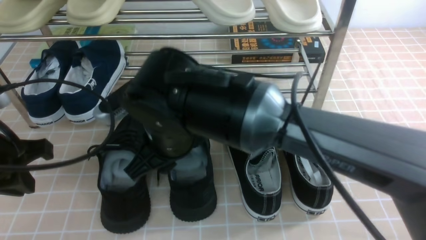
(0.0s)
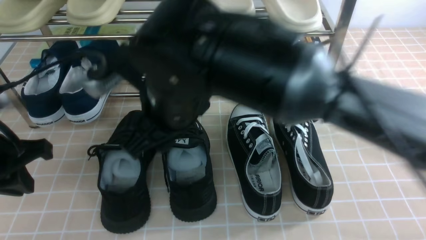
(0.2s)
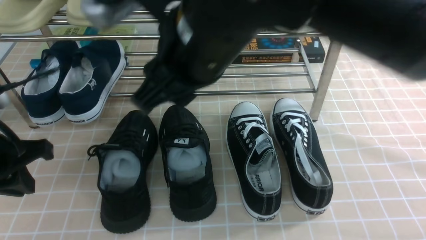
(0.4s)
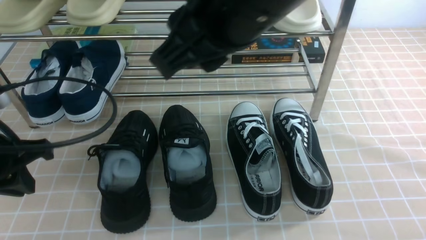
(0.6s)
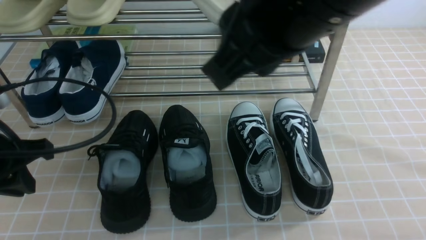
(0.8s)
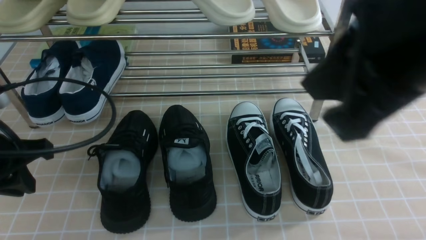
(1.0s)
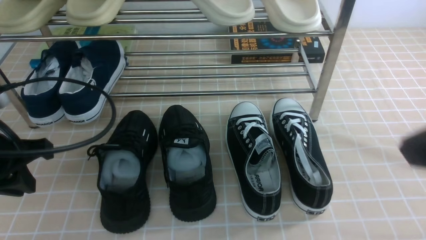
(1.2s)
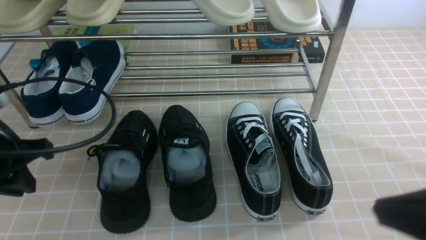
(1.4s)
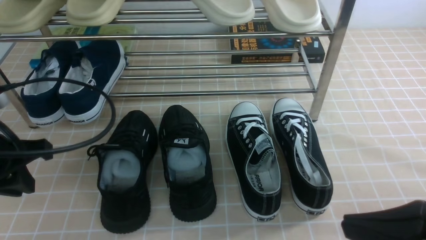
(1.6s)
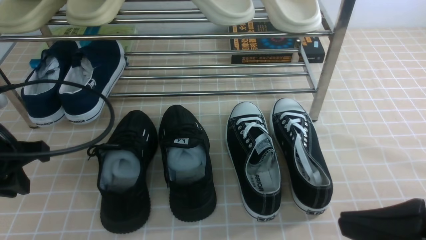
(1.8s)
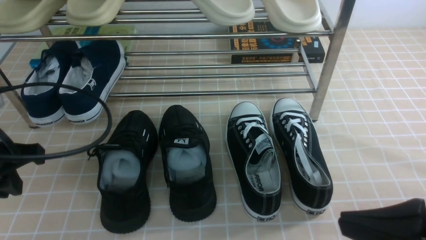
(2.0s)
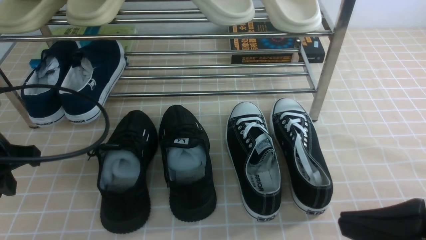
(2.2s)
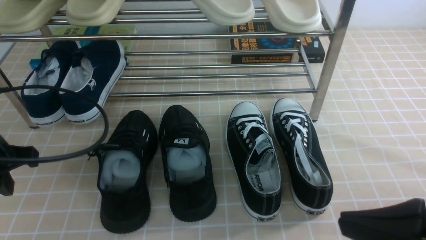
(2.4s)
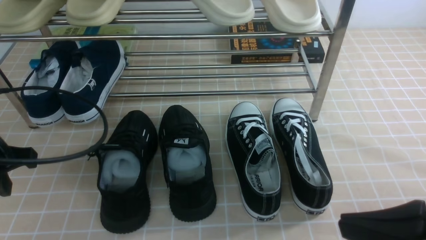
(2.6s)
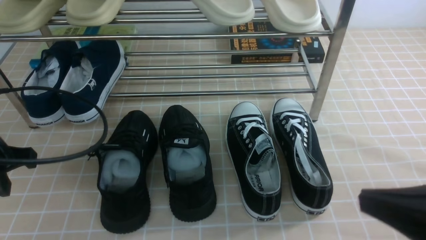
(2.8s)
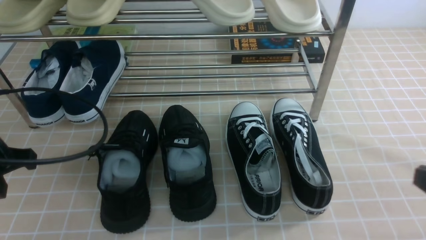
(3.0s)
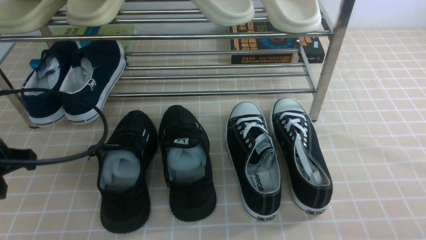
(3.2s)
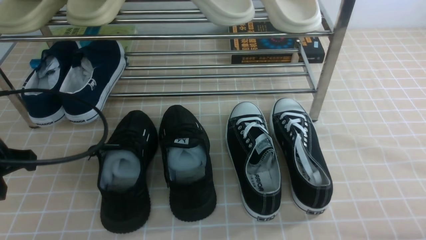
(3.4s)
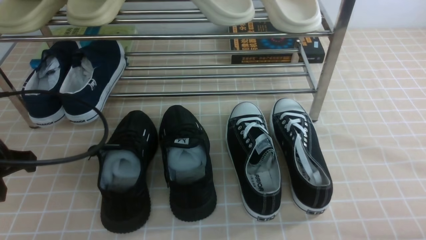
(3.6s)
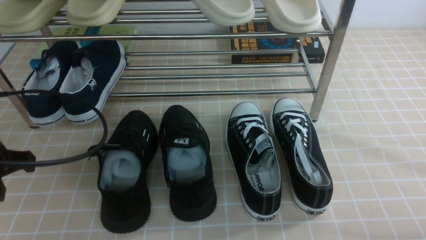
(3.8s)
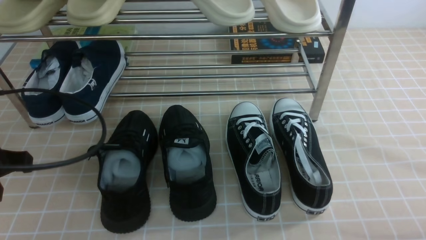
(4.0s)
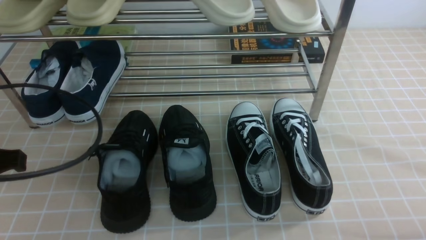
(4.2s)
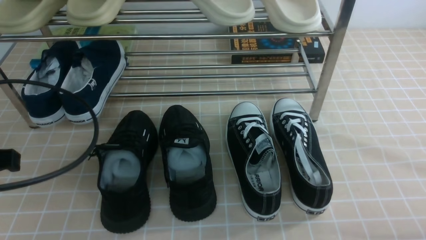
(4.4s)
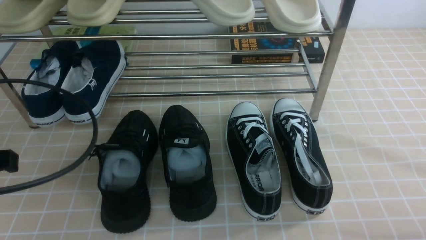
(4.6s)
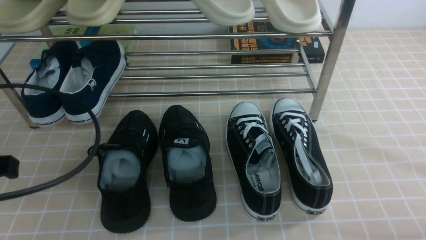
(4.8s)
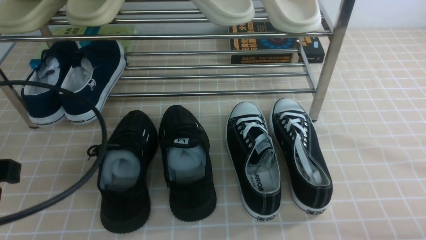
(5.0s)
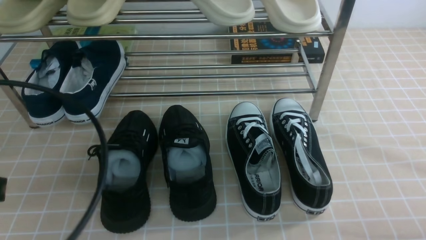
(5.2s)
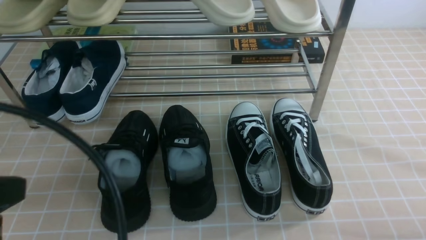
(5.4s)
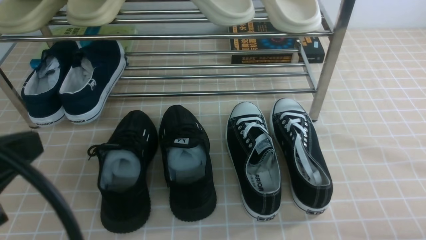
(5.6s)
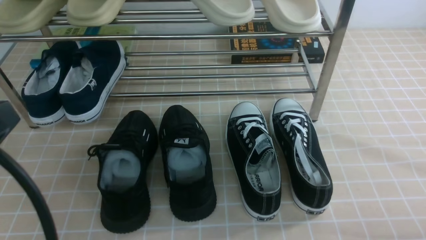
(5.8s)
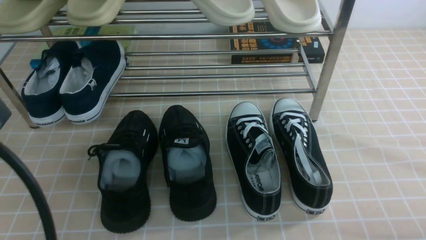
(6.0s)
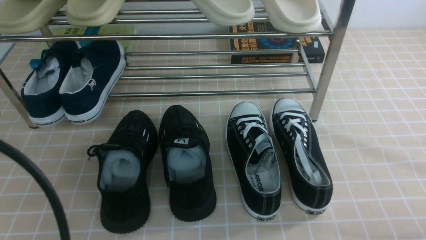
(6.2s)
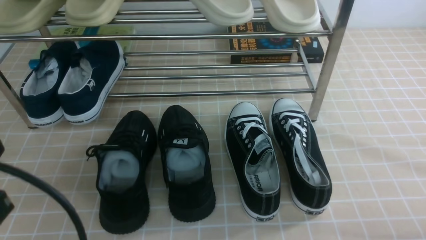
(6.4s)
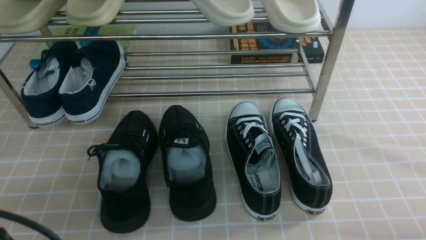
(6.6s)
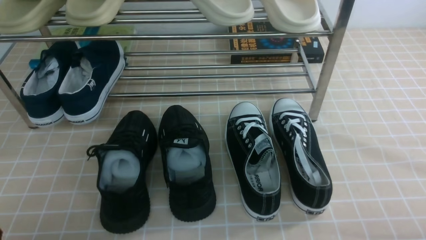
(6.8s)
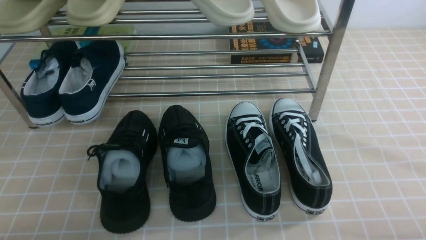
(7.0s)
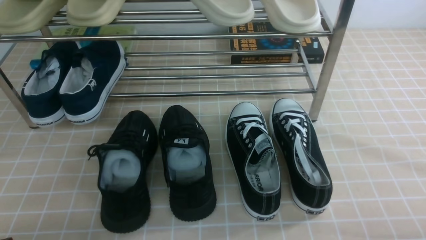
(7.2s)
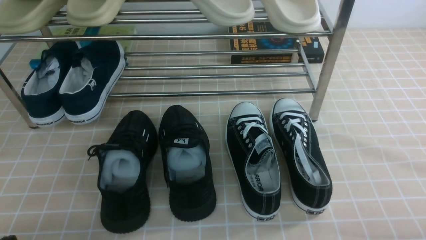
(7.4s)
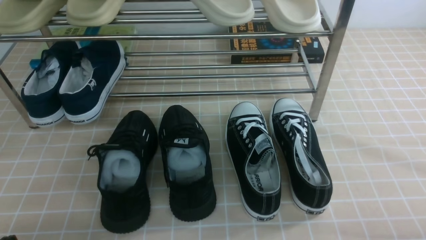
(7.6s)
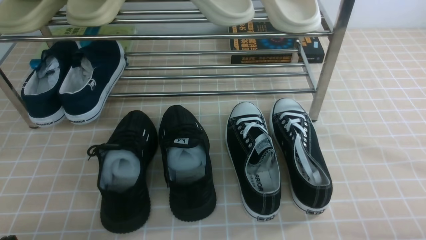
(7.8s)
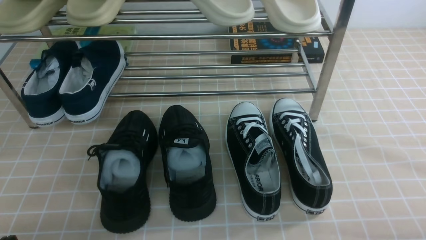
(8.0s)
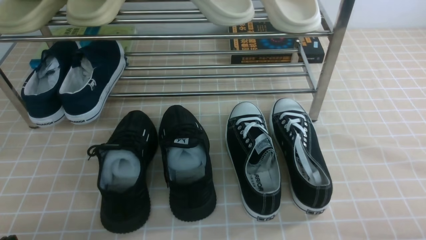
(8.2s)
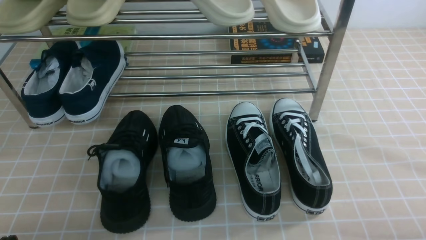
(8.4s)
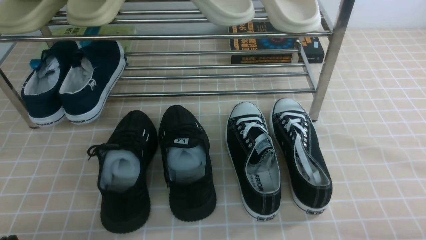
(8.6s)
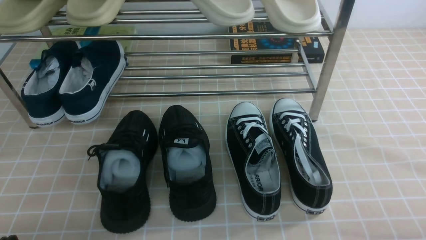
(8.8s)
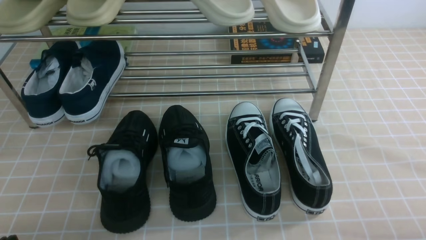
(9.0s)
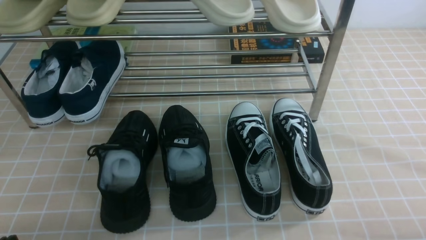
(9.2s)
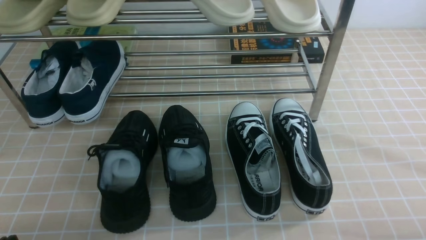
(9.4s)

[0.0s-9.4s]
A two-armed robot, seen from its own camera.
0.0s to 1.6s: The right gripper is displaced to the right and backward by about 35 cm, and closes.
1.6s to 3.2s: The right gripper goes roughly 15 cm to the right and downward.
3.2s to 4.8s: The left gripper ends up about 5 cm from where it was.
4.8s to 6.2s: The left gripper travels backward by about 10 cm.
6.2s to 7.8s: The left gripper goes about 15 cm downward.
7.8s to 9.4s: Neither gripper changes place.

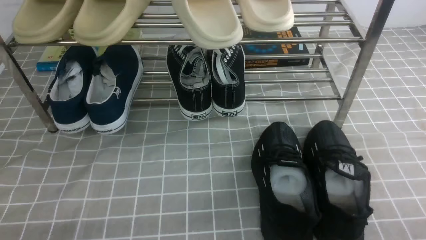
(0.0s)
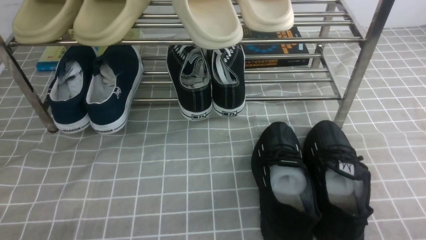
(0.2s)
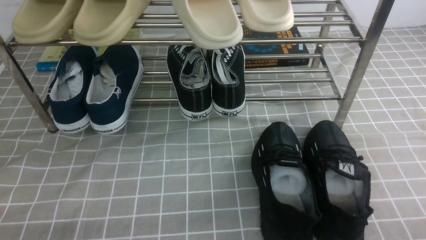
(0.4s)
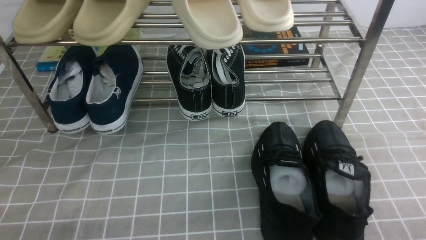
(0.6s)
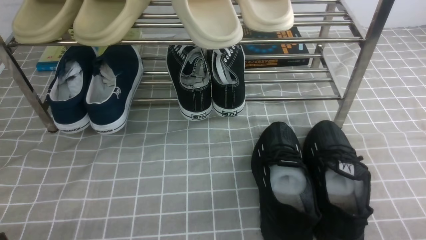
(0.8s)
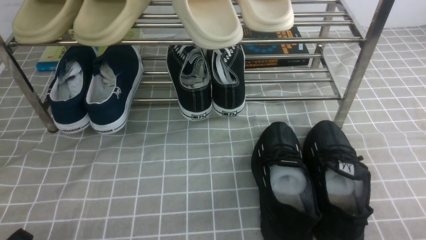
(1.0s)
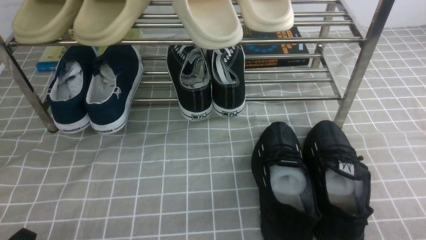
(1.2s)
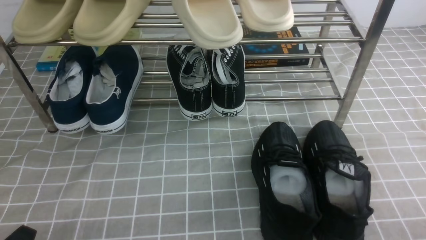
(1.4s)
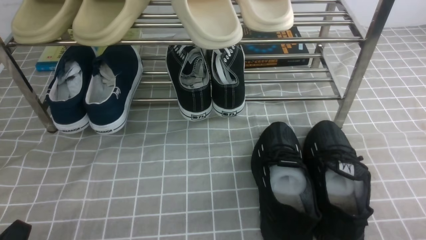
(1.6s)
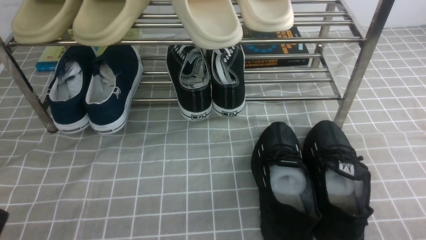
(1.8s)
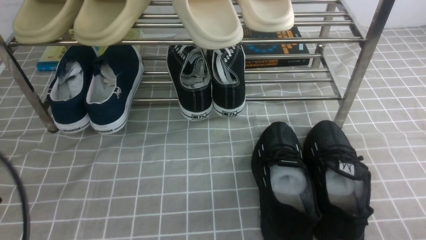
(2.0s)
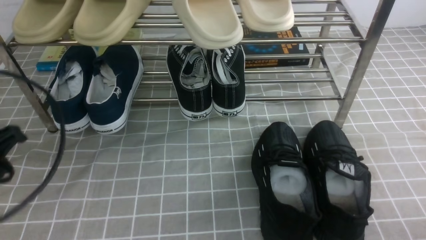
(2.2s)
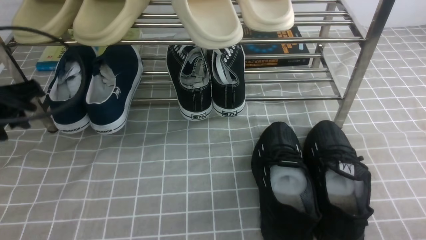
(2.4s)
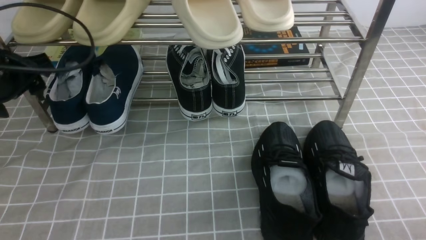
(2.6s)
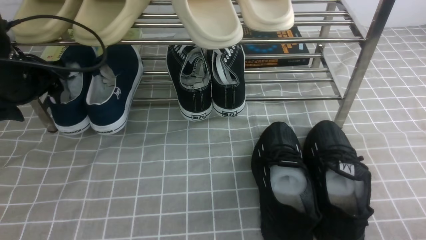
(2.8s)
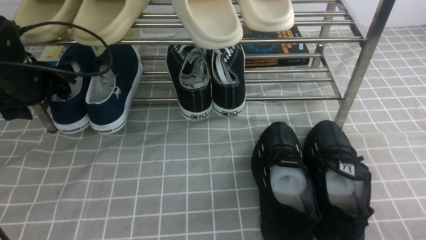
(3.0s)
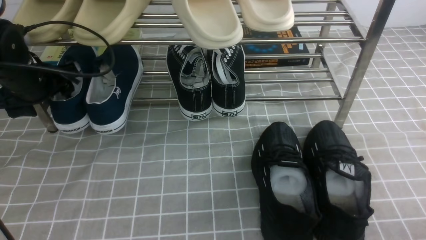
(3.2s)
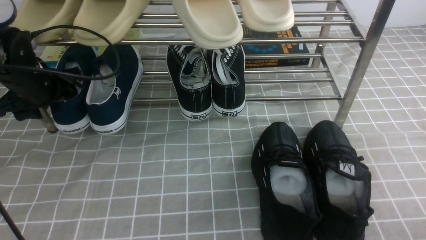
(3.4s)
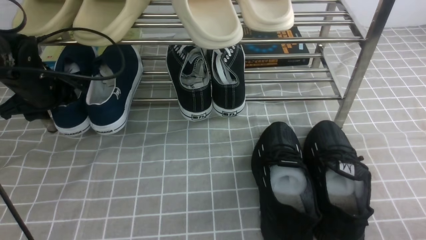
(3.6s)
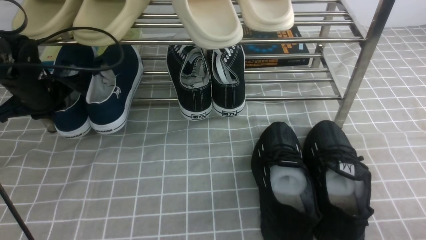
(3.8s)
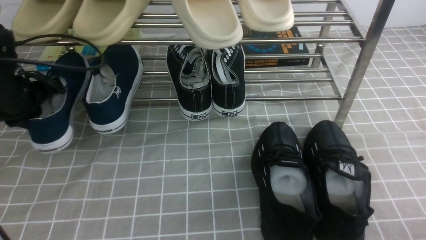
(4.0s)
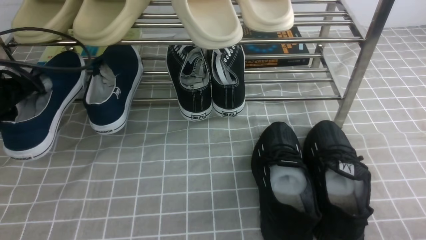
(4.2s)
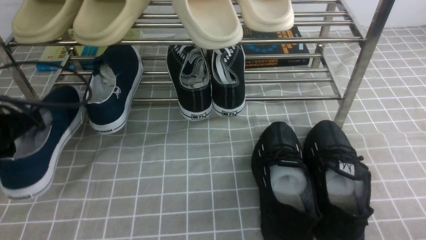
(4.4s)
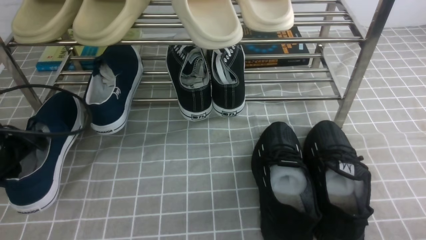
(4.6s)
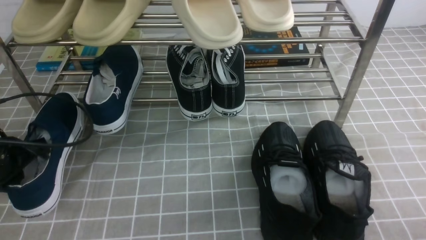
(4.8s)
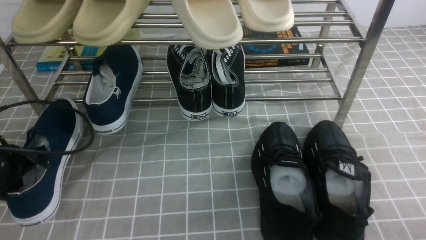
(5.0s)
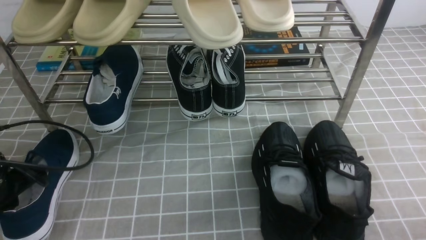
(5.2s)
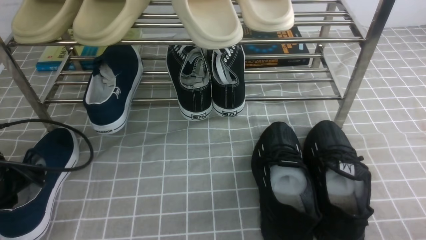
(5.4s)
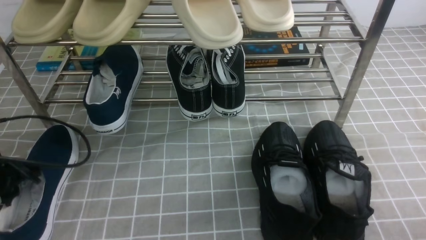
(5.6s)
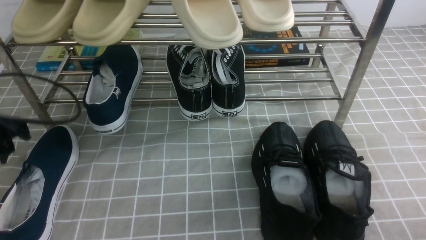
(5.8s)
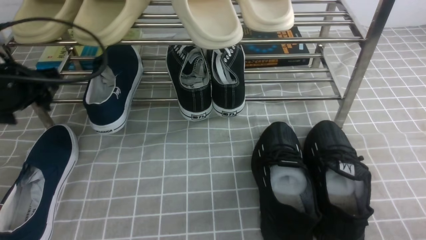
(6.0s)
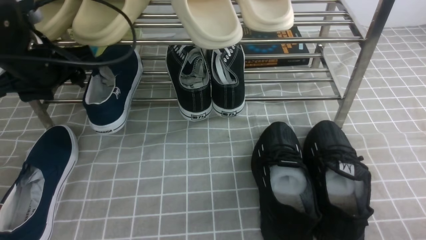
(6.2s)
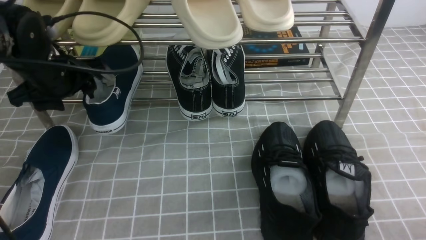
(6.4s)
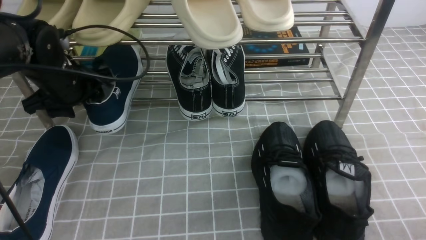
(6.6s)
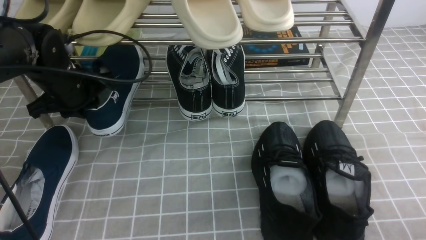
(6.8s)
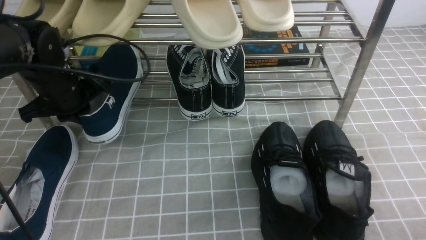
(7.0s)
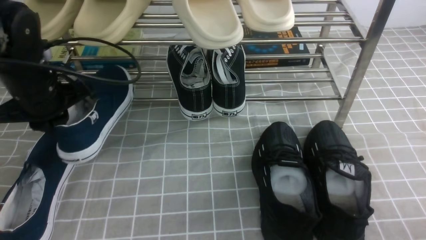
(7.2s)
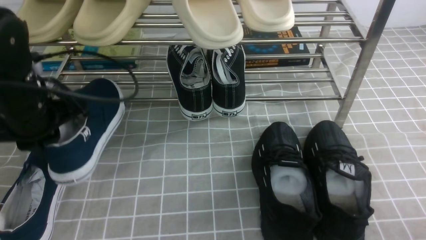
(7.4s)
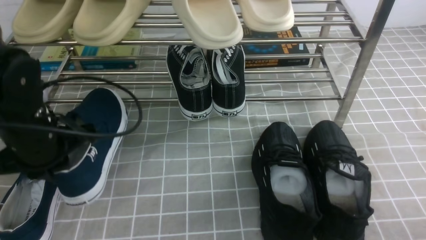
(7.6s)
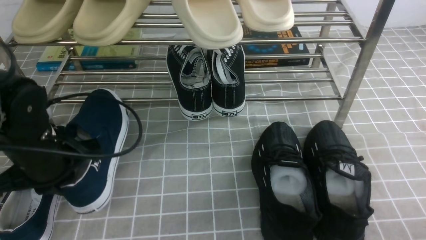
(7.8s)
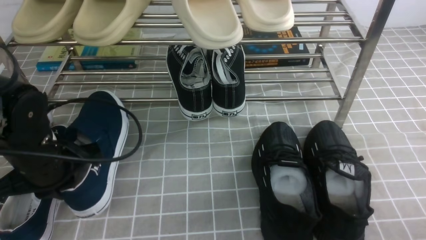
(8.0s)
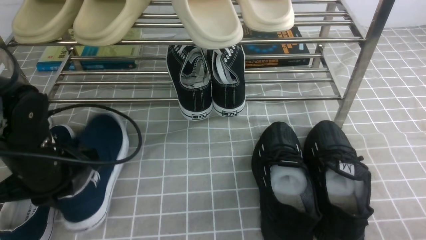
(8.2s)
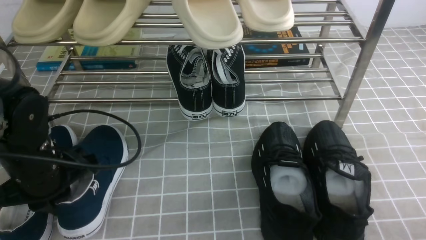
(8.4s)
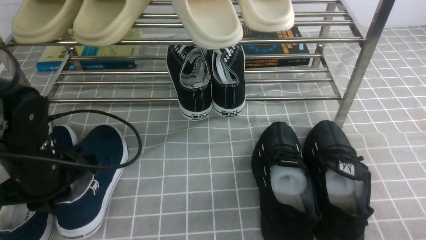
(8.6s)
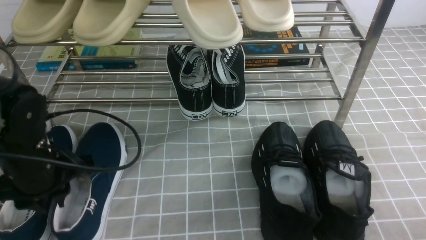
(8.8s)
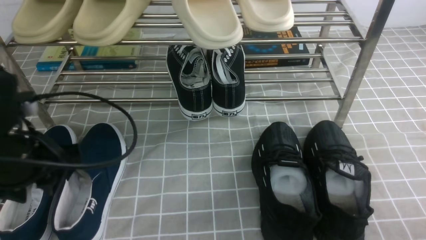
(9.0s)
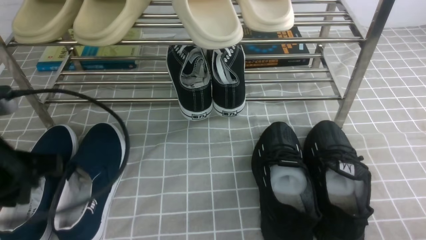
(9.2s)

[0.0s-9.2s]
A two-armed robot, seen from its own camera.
Step, 0.0s to 3.6s: use the left arm to clamp a shoe on the left side of the shoe rack.
Step, 4.0s to 5.6s: Use your left arm to remove the clamped shoe from the shoe rack and put it down.
Step, 5.8s to 6.8s: use the left arm to clamp a shoe on the left side of the shoe rack.
Step, 7.0s to 9.0s: Use your left arm to remove the clamped shoe from the shoe rack and put it down.
1.6s to 3.0s: The left gripper goes roughly 30 cm forward, and opens up.
3.0s to 4.6s: The left gripper travels backward by roughly 10 cm, and closes its fingers.
4.6s to 6.2s: The left gripper is displaced forward, upward and to the right by about 10 cm, and opens.
6.2s to 7.6s: The left gripper moves backward, about 5 cm, and closes up.
7.6s to 9.2s: The left gripper shifts some 10 cm backward.
